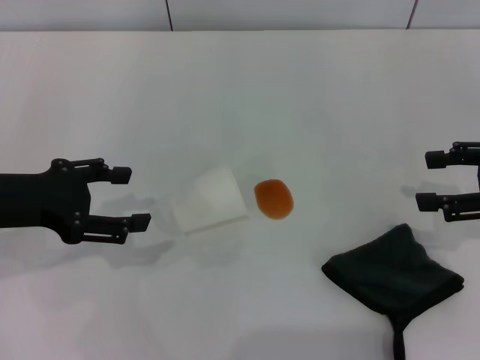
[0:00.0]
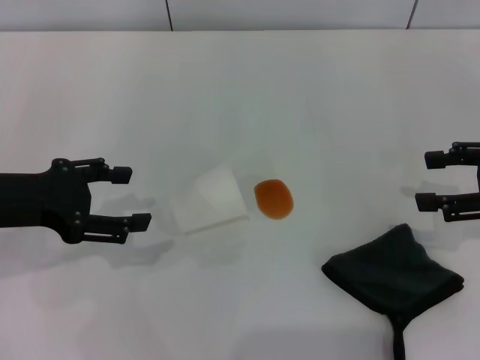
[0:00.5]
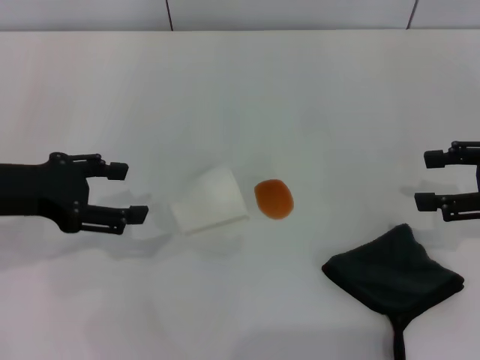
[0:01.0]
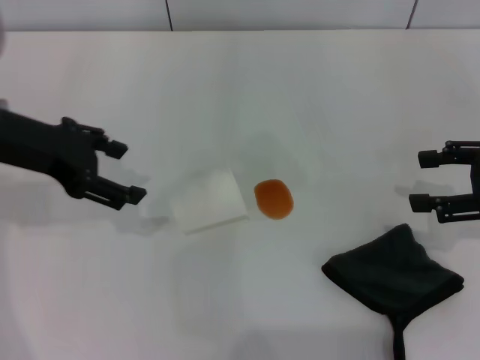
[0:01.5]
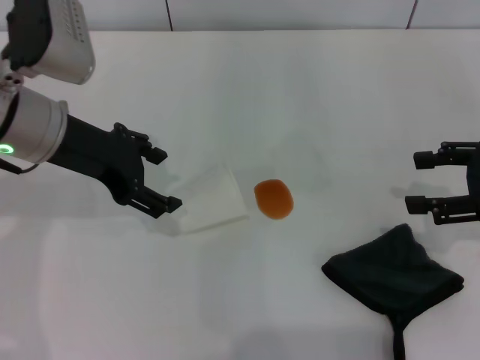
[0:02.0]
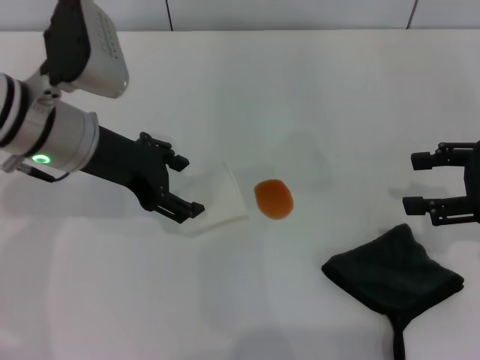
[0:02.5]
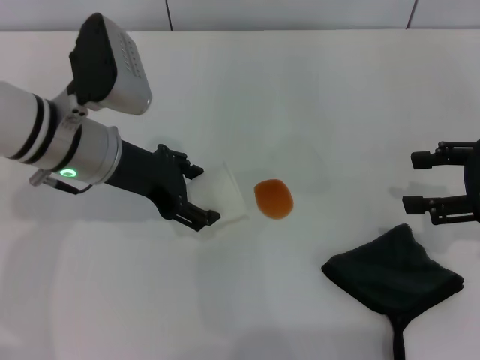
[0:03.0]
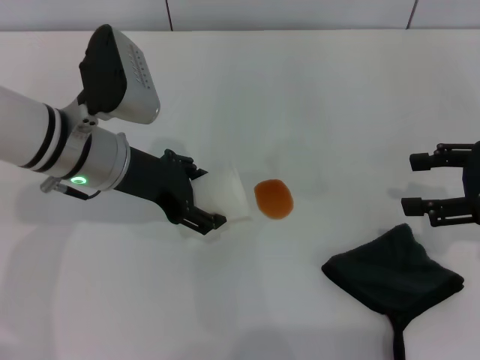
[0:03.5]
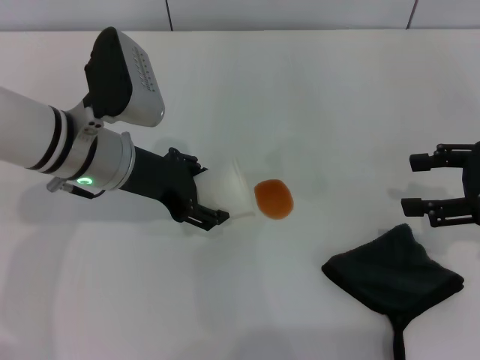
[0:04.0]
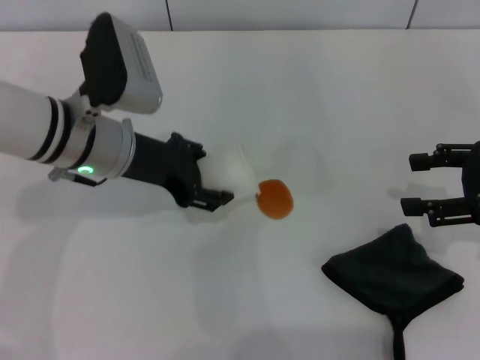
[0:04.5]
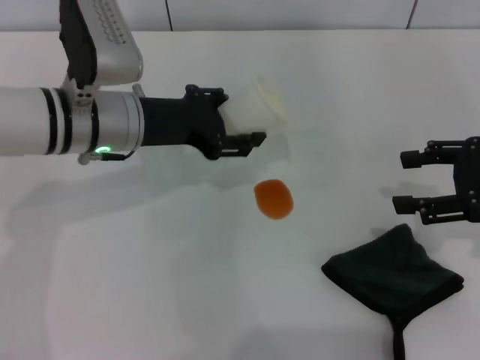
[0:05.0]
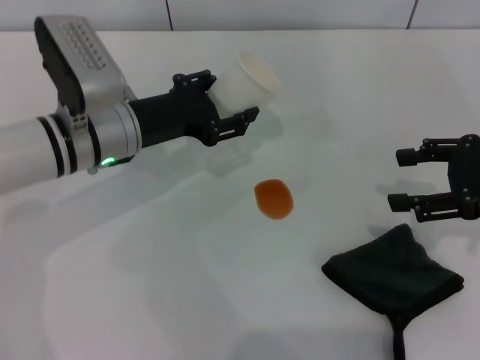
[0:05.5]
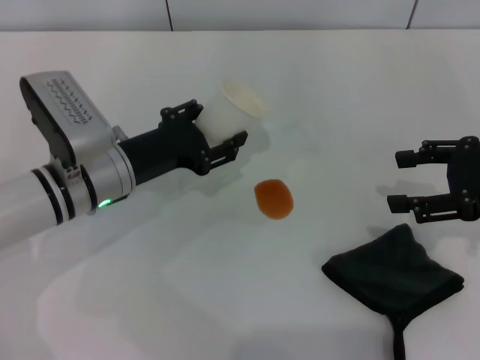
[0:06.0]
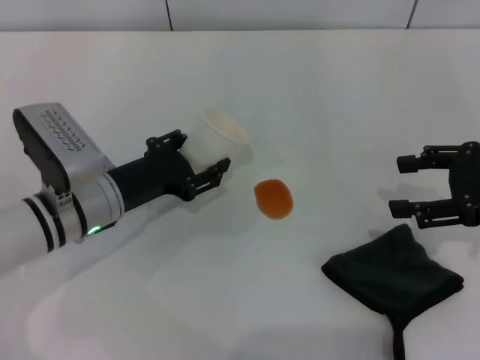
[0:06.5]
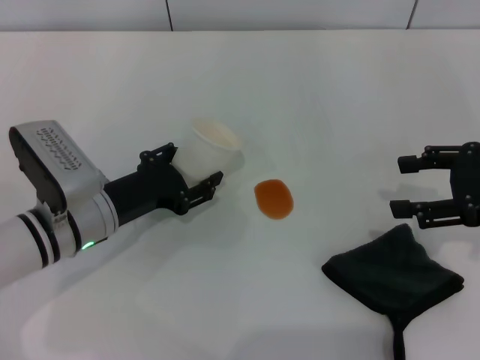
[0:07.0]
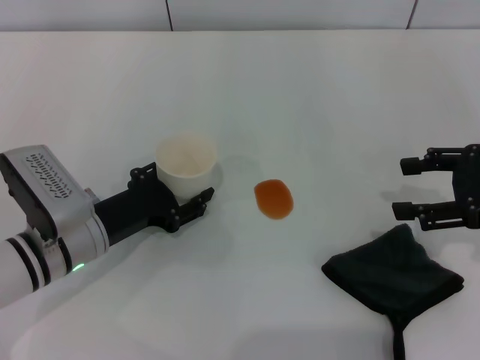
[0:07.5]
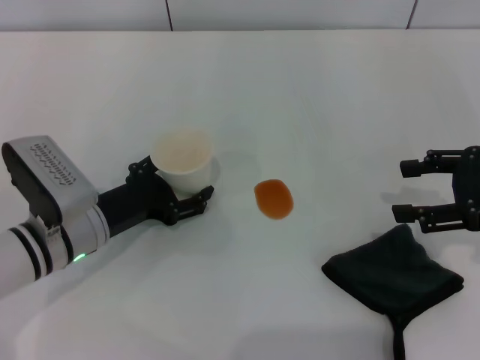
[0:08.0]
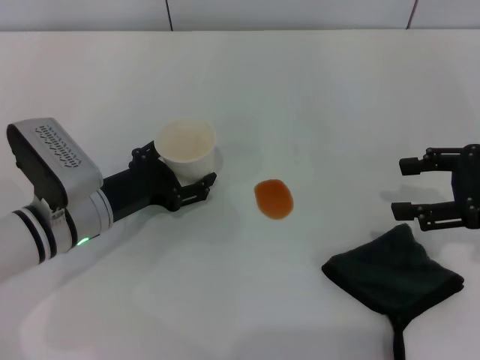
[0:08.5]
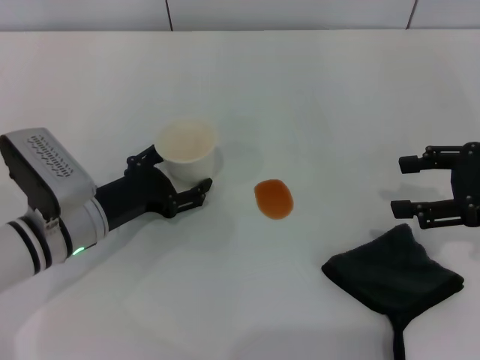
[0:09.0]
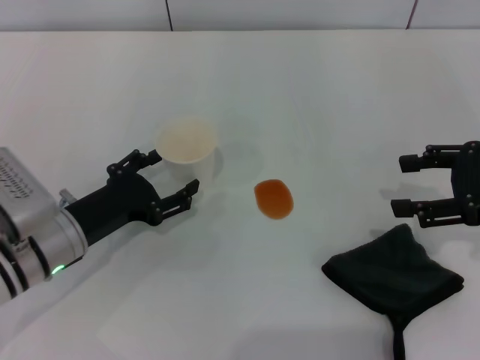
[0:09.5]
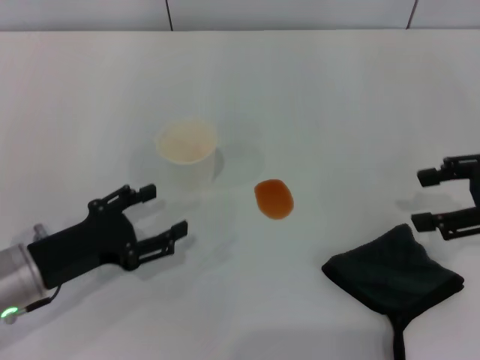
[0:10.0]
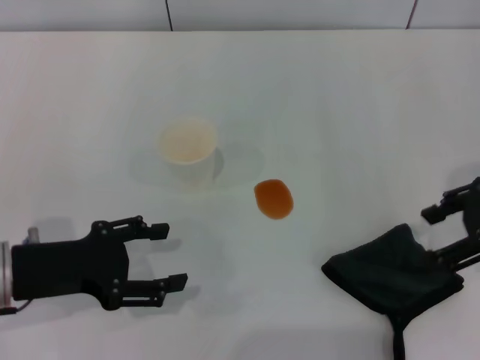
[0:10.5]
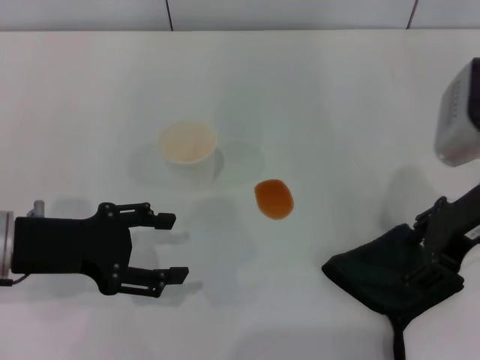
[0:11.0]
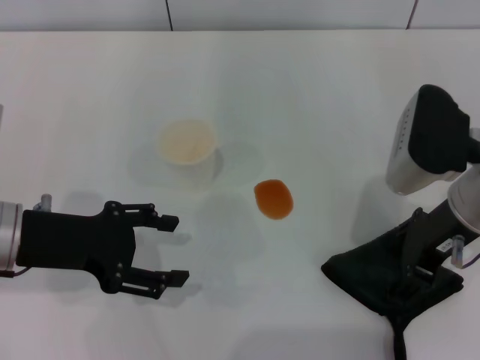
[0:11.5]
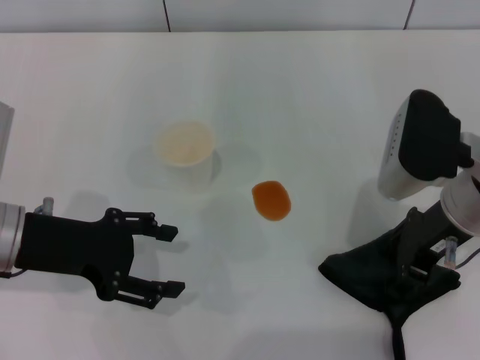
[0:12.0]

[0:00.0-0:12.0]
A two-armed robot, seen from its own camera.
Step, 0:00.0 to 0:04.0: Grasp the paper cup with the left gripper.
Step, 0:04.5 to 0:09.5: Stand the paper cup upright with the left gripper.
0:00.0 to 0:02.0: The left gripper travels to the right and forward by about 10 cm.
0:02.0 to 0:04.0: The left gripper goes about 5 cm downward.
0:04.0 to 0:06.0: The left gripper travels downward by approximately 5 cm, and closes.
0:06.0 to 0:08.0: The left gripper moves about 5 cm, and opens its fingers.
0:08.0 to 0:10.0: The left gripper travels backward and to the left by some 10 cm.
0:10.0 to 0:12.0: The left gripper shifts about 10 cm upward; the right gripper goes approximately 15 cm to the left.

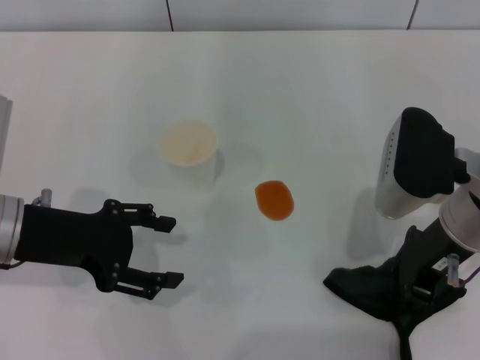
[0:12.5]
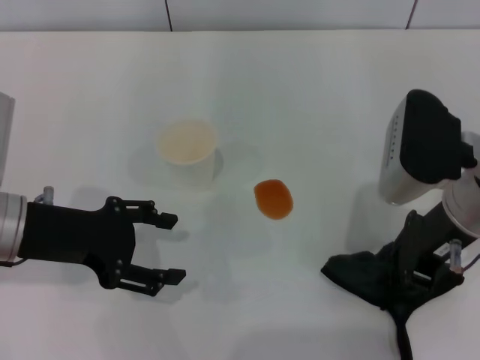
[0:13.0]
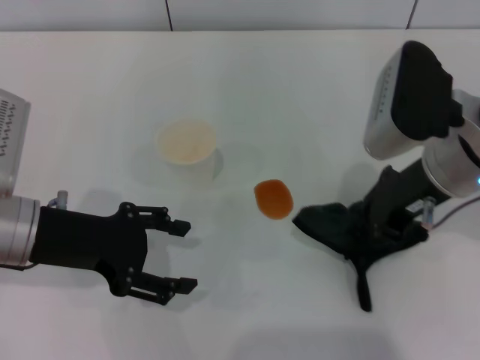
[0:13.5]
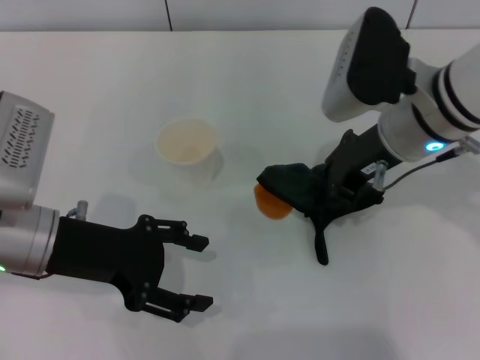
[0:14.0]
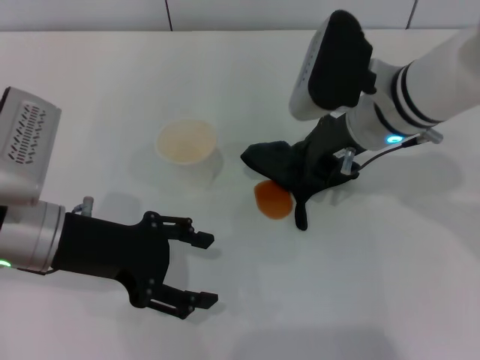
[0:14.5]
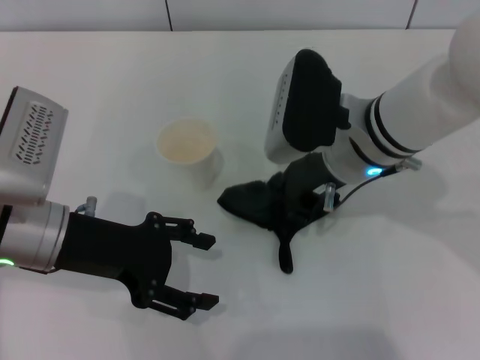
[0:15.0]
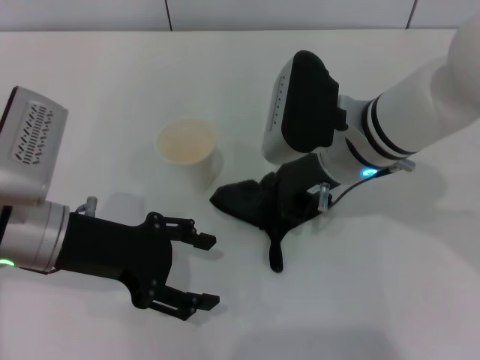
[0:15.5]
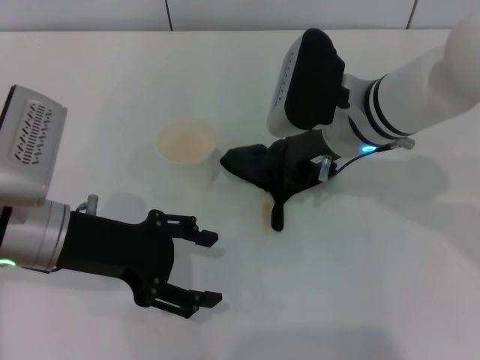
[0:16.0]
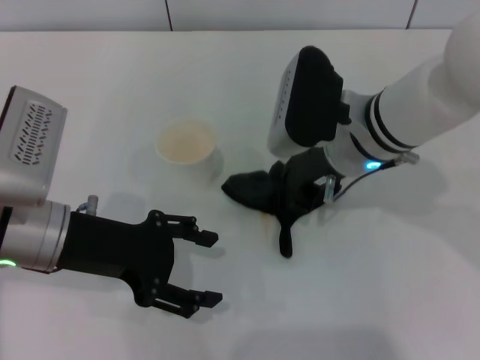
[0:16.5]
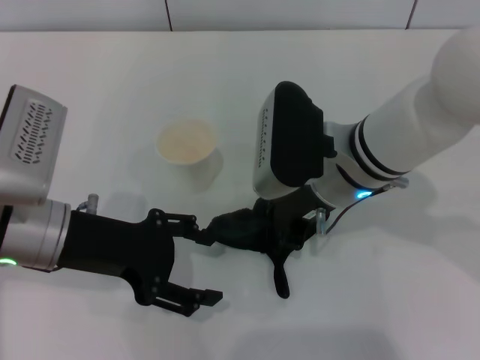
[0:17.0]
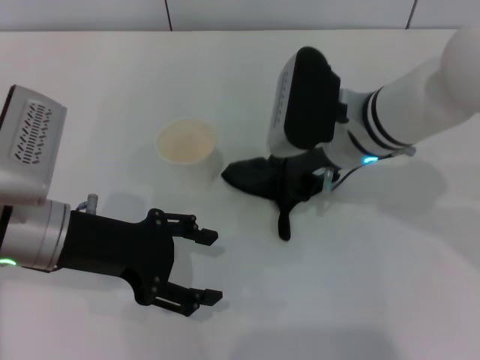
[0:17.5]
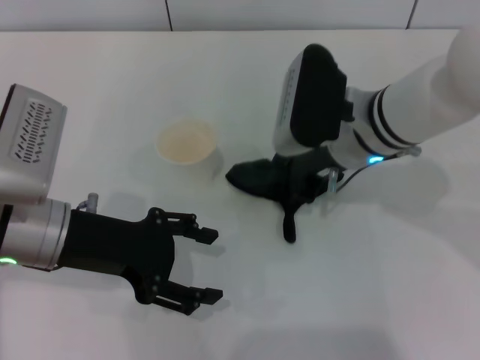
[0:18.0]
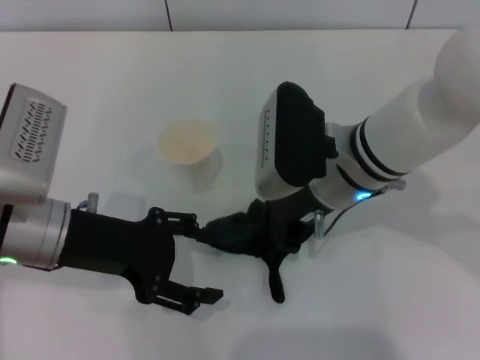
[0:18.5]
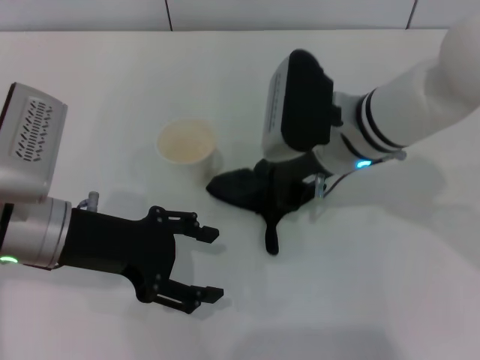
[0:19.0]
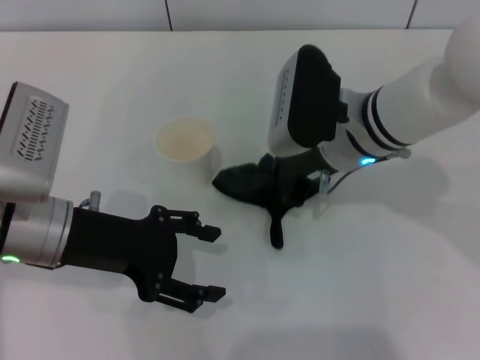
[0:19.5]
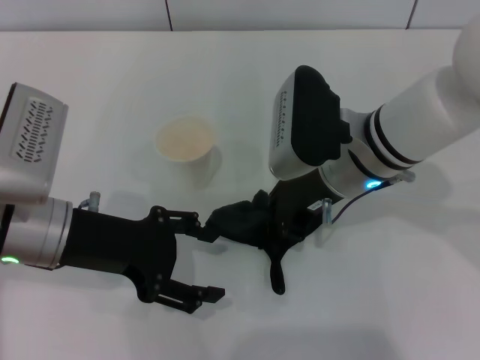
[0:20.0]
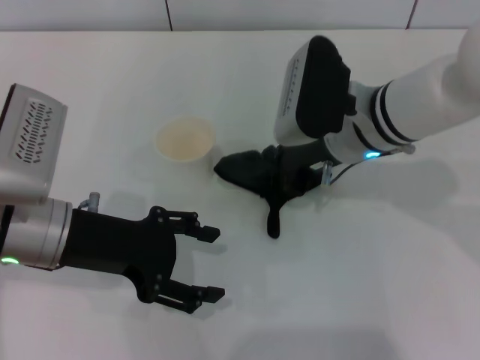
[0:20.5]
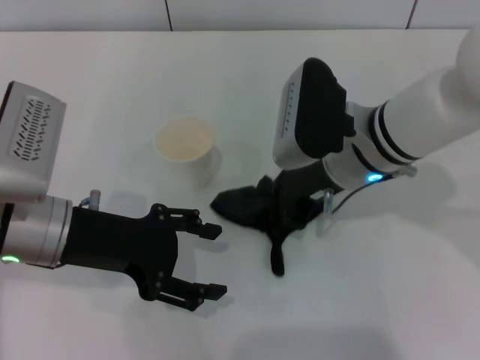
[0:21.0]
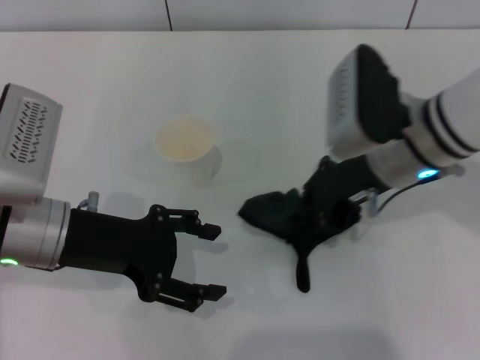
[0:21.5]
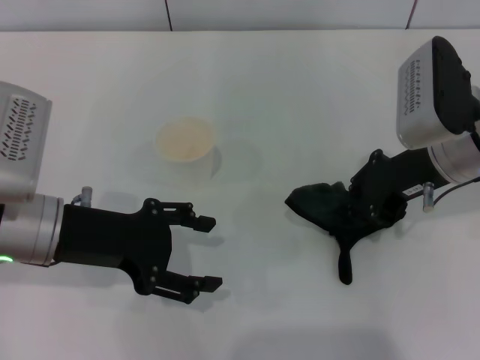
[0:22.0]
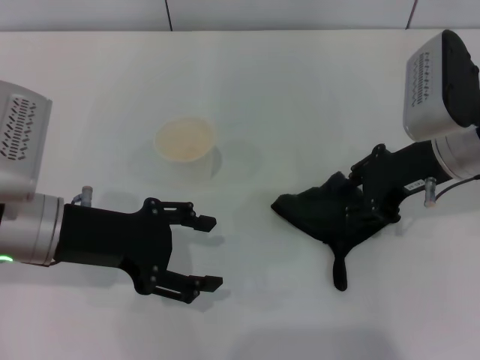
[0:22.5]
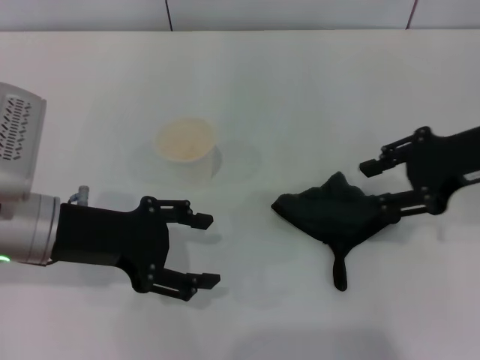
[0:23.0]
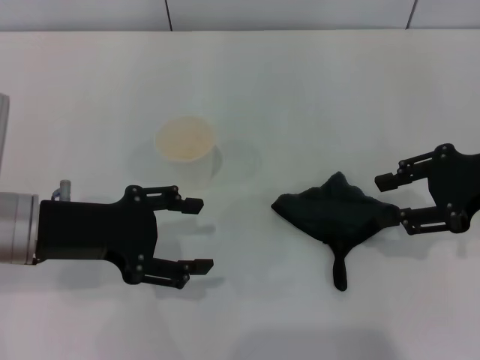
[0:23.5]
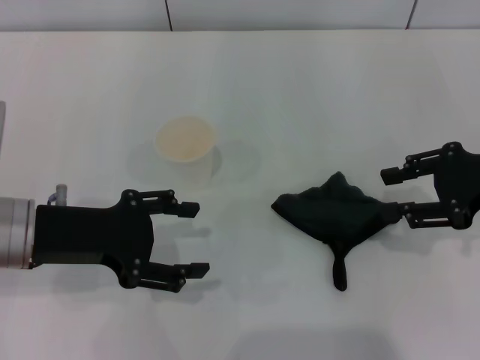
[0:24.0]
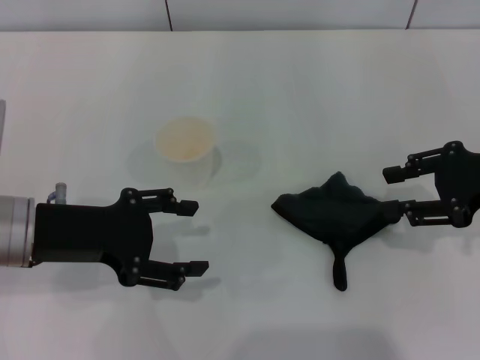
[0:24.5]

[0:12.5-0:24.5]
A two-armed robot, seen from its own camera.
Step, 0:12.5 to 0:20.5: Wipe the stains off the table with the right gripper.
Step, 0:21.0 to 0:23.0: Place the rag on the table with the right gripper.
0:12.5 to 0:14.5: The right gripper shifts roughly 10 cm forward and to the left.
0:14.5 to 0:20.5: The grippers stay close to where they were, moving slightly.
0:20.5 to 0:22.5: The right gripper travels to the right by some 10 cm.
0:22.5 to 0:24.5: The right gripper goes about 10 cm to the right, and opens up.
